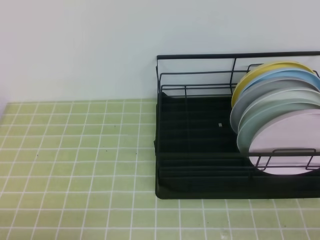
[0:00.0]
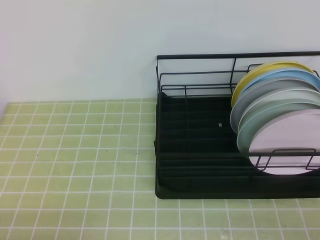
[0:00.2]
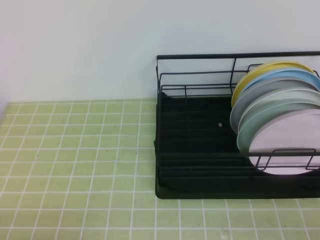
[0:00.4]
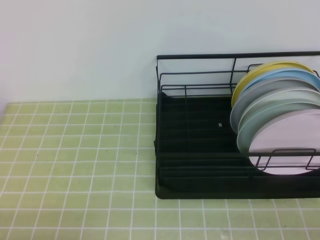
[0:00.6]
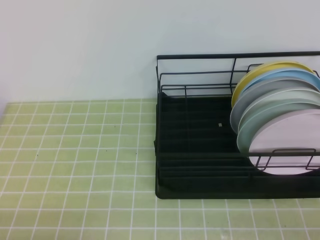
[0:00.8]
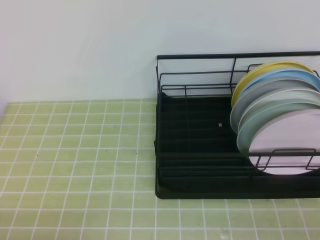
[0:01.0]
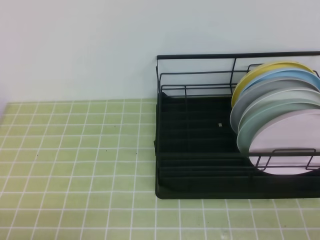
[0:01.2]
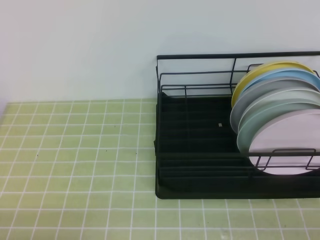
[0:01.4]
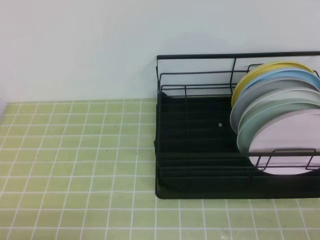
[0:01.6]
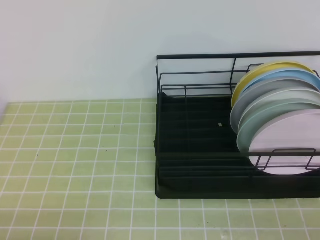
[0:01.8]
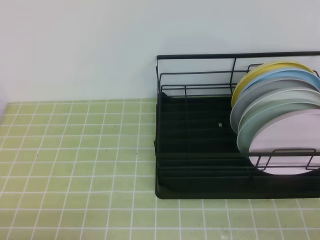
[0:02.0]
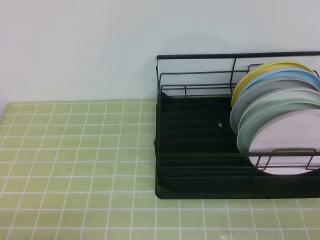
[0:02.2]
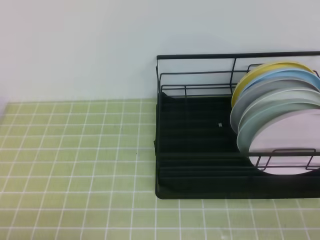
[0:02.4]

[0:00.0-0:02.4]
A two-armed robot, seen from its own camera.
0:00.0 to 0:02.4: Both grippers stay about where they are.
